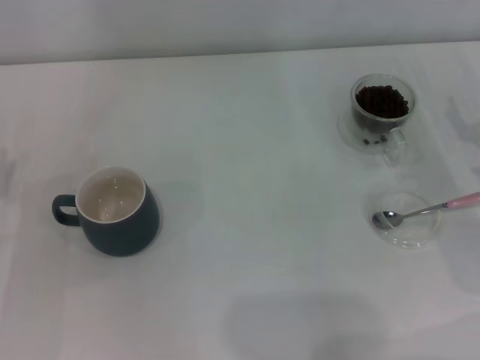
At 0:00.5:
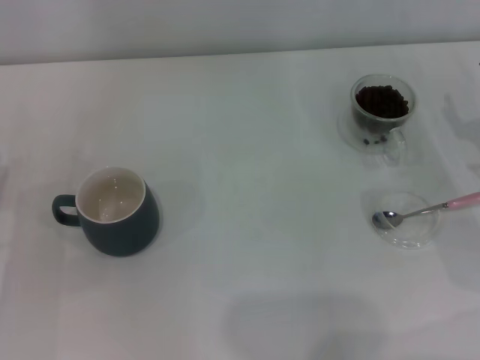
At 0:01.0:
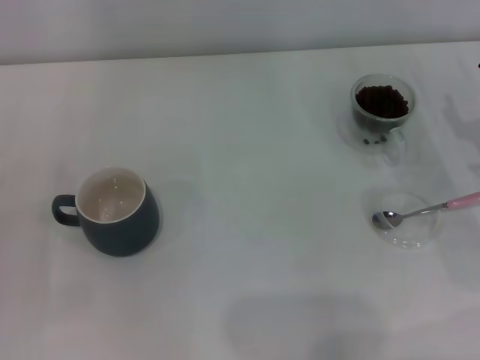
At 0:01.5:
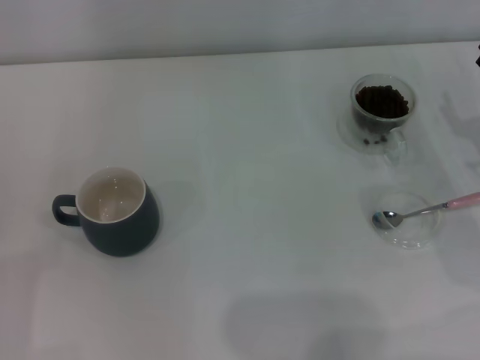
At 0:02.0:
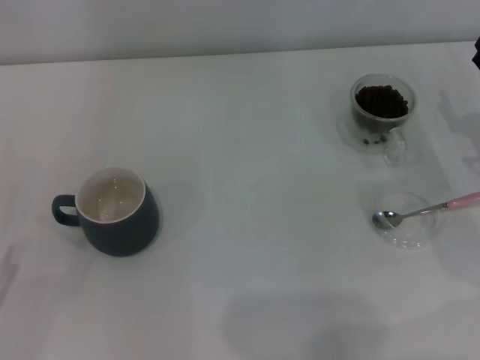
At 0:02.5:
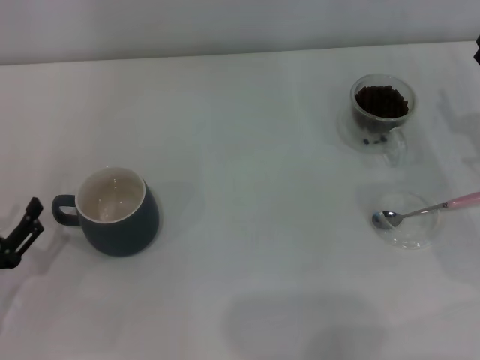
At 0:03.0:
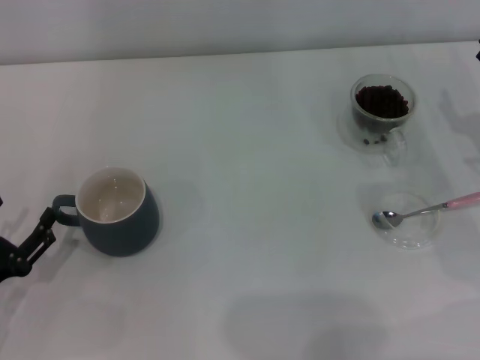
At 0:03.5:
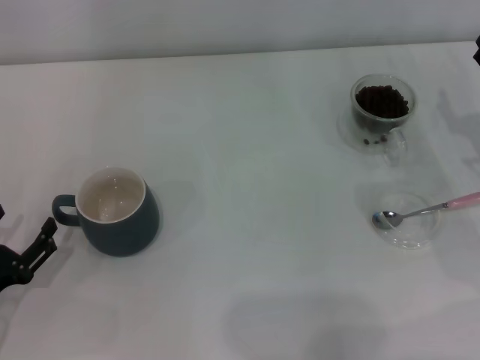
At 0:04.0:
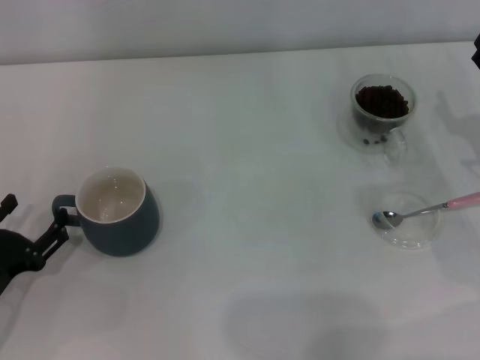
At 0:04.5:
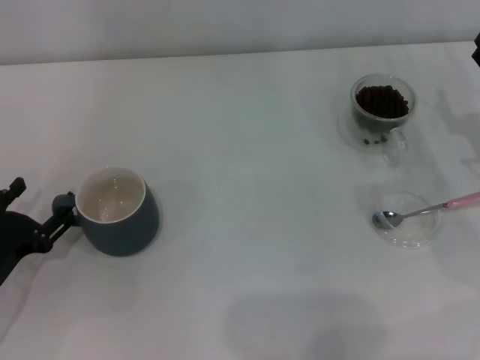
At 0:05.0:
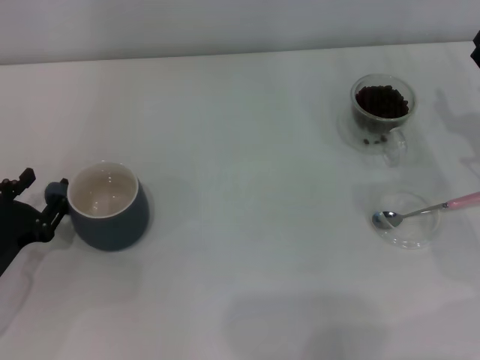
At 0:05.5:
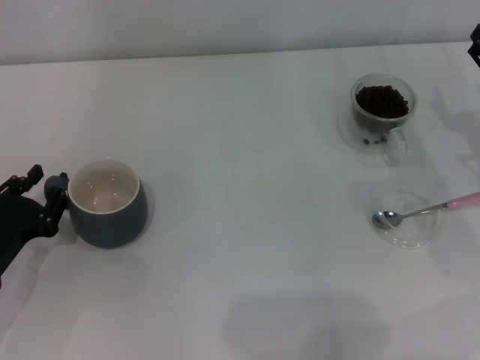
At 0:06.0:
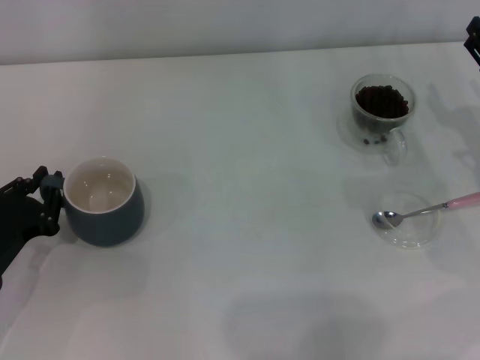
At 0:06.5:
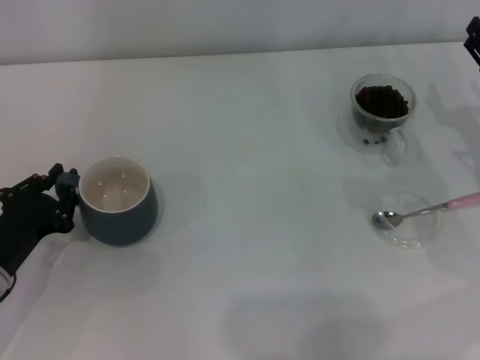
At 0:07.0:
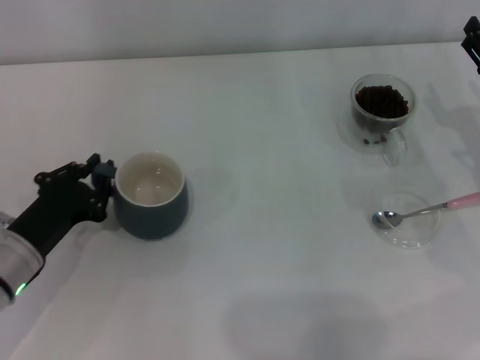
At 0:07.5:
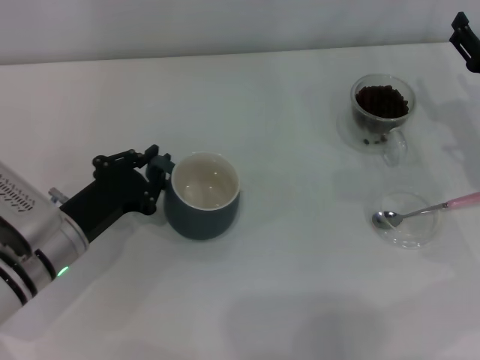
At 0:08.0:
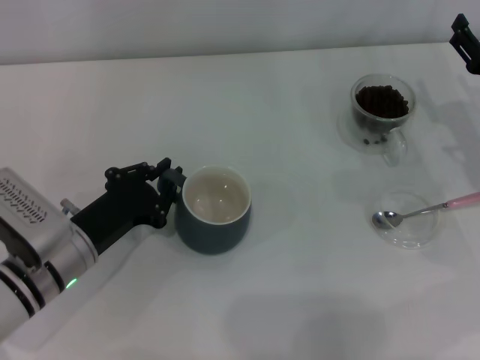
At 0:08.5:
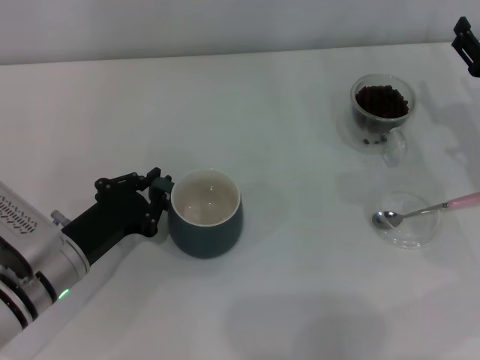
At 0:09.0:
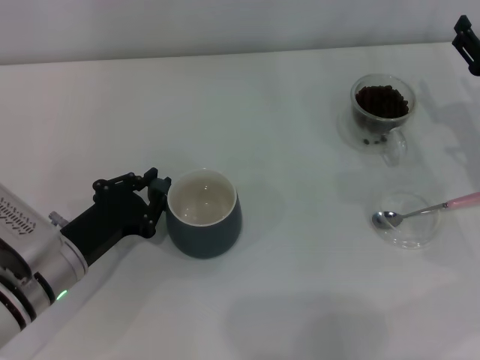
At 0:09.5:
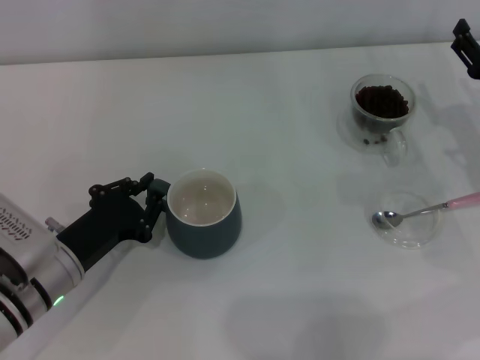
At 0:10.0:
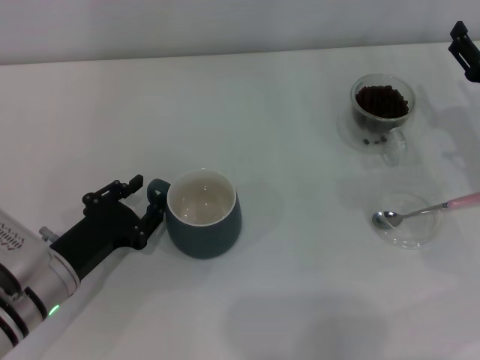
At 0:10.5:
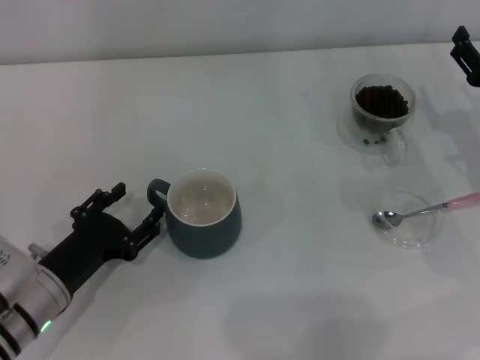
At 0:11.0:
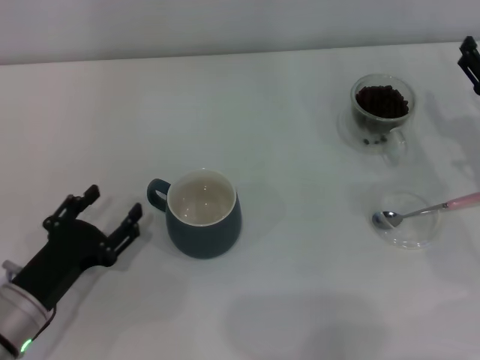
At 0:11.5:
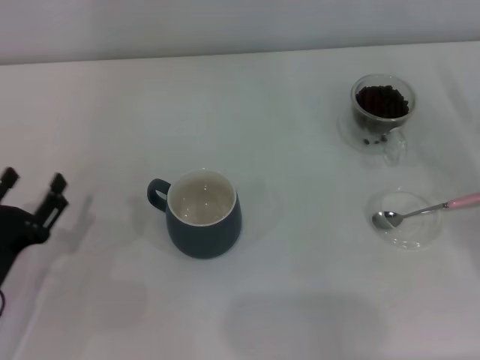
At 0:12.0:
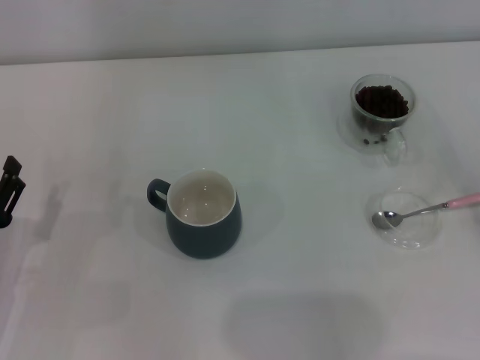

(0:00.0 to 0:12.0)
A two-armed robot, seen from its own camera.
Task of the whole recording: Use a pink spoon to take out the coffee beans from the glass and pour them into the gray cup.
Step, 0:00.0 - 0:11.0: Move the cup to the center of view with the left gripper.
0:02.0 - 0:04.0: The left gripper goes approximately 10 cm forward.
0:04.0 - 0:06.0: The left gripper closes.
0:06.0 - 0:08.0: The left gripper shifts approximately 10 cm to the right.
0:08.0 - 0:10.0: The grippers stay close to where they were, moving slightly.
0:10.0 - 0:12.0: The left gripper shifts about 5 cm to the left, and opens its fingers; the right gripper goes some 15 cm backward and to the right.

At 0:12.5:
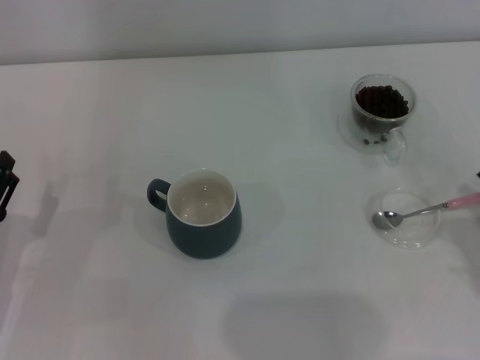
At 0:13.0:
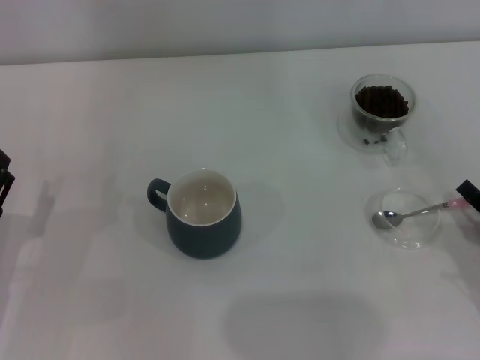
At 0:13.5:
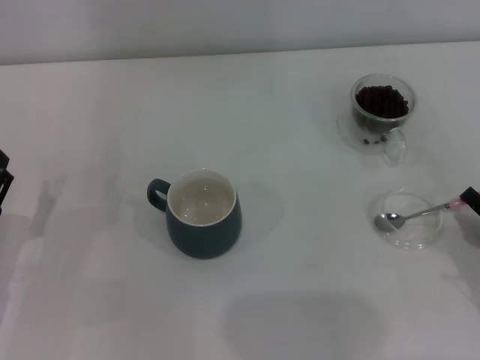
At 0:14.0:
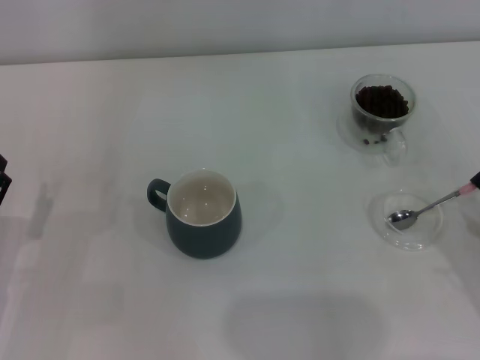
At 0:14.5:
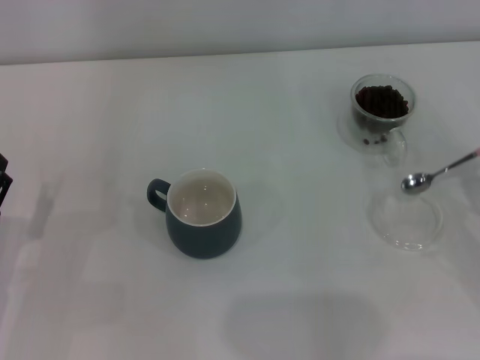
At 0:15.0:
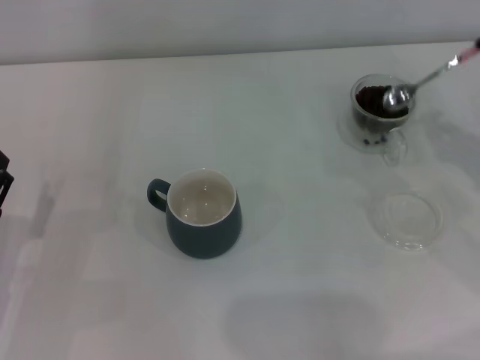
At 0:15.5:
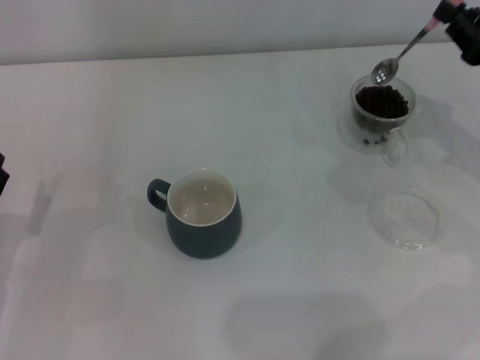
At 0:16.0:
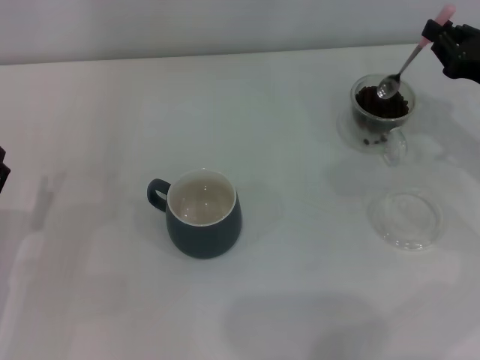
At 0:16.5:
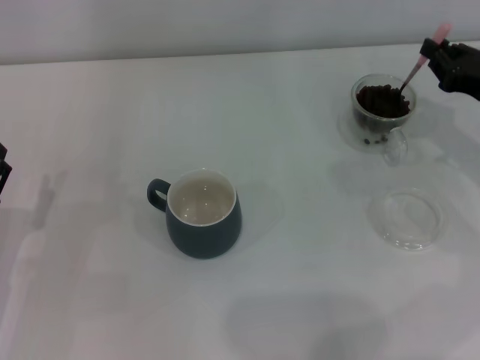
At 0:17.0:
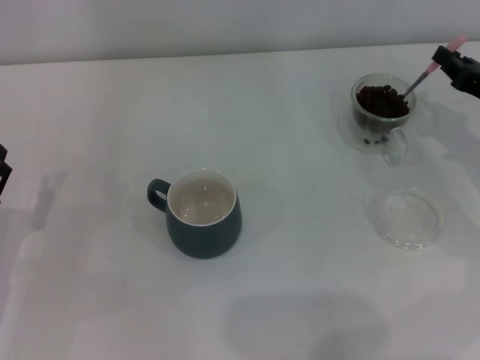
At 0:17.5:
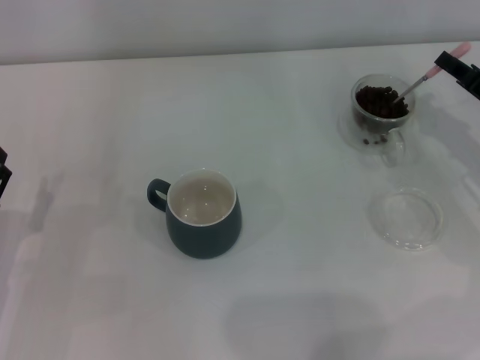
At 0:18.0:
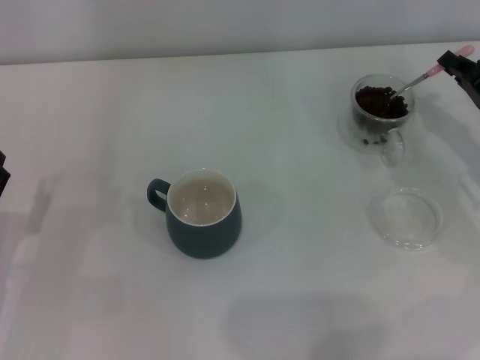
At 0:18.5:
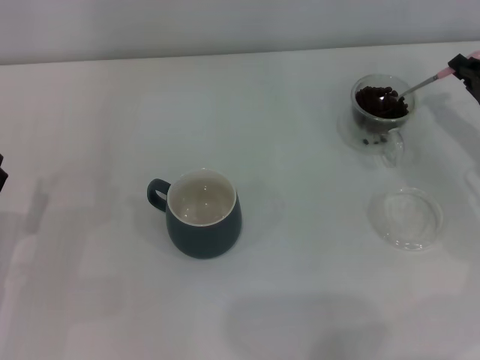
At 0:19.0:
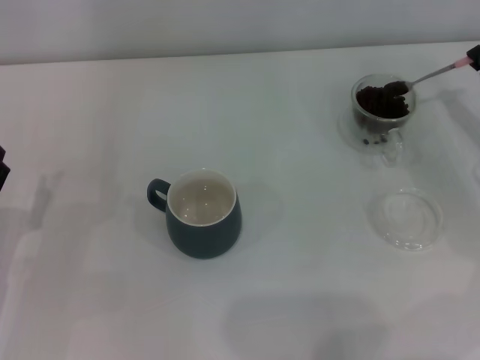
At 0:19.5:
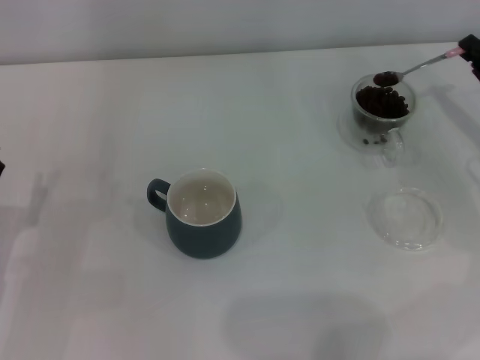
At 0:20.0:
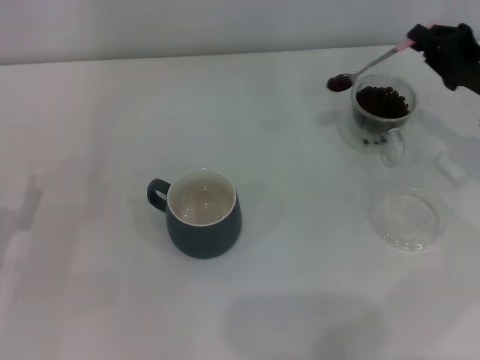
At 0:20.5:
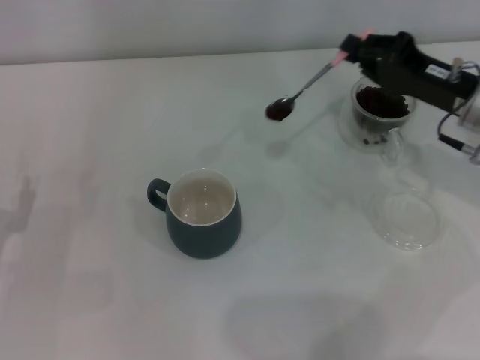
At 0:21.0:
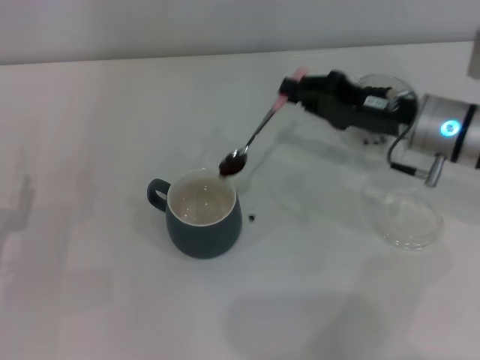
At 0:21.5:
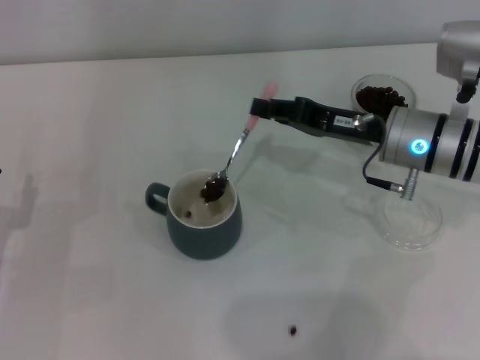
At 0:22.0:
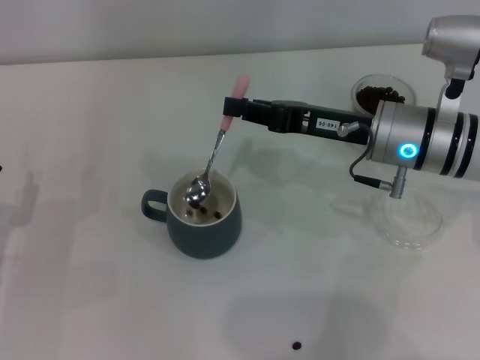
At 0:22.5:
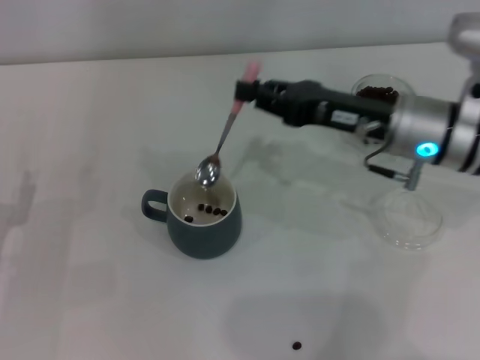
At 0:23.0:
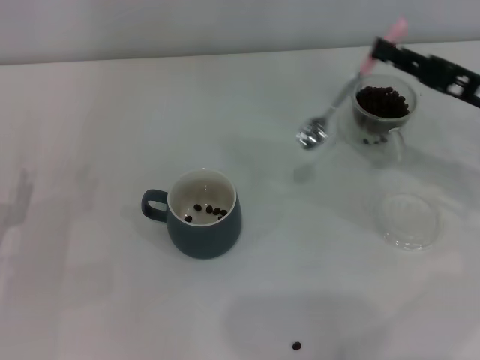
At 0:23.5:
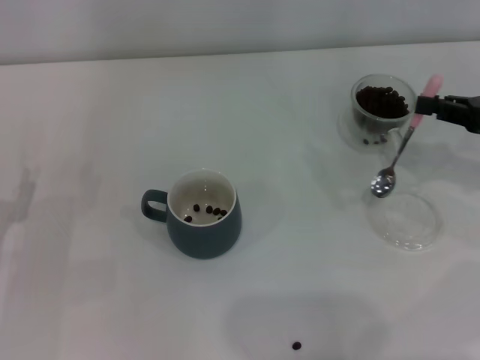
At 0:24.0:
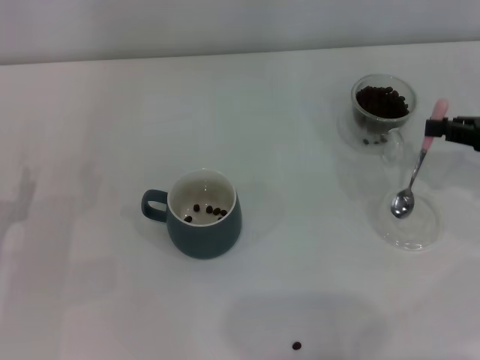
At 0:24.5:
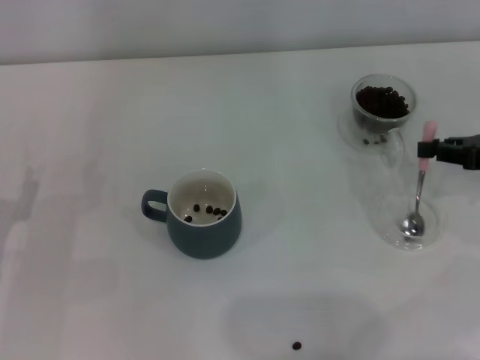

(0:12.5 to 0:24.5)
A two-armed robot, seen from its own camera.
Task of the whole recording: Use a pink spoon to take out the coffee beans from the glass and pour them into the gray cup.
Step, 0:15.0 - 0:22.5: Scoop a spoonful of beans into the cup with the right gripper.
0:12.5 - 0:14.5: The right gripper closes.
0:14.5 - 0:16.5: The right gripper goes about 15 cm forward.
0:18.5 - 0:20.5: The right gripper goes approximately 5 cm to the left.
0:20.5 - 0:22.5: The right gripper heads to the left, covering approximately 10 cm.
0:22.5 - 0:24.5: The right gripper is displaced to the right by approximately 20 cm.

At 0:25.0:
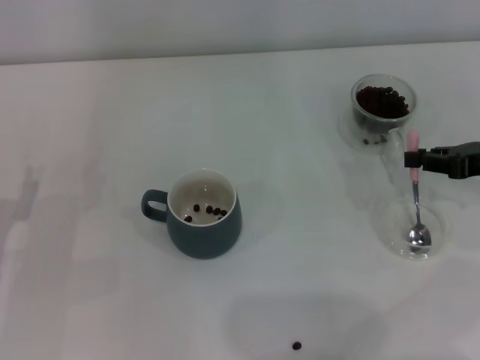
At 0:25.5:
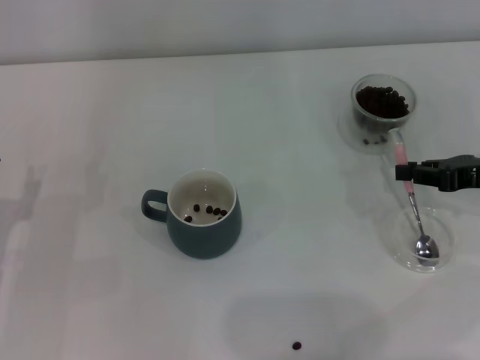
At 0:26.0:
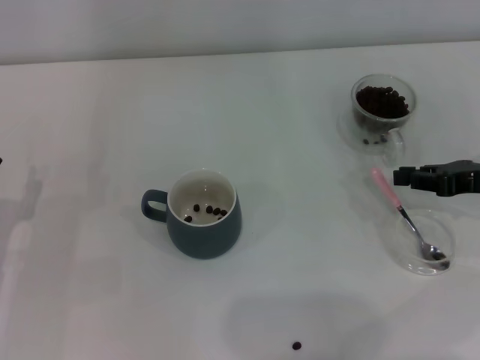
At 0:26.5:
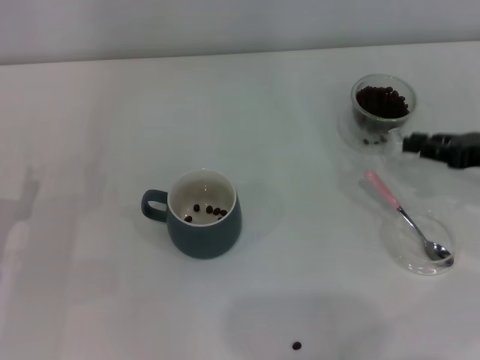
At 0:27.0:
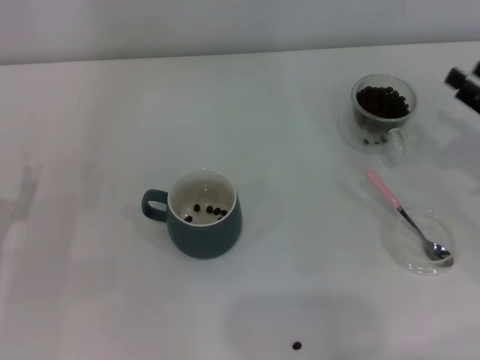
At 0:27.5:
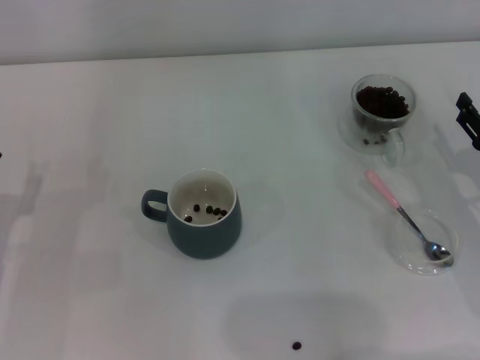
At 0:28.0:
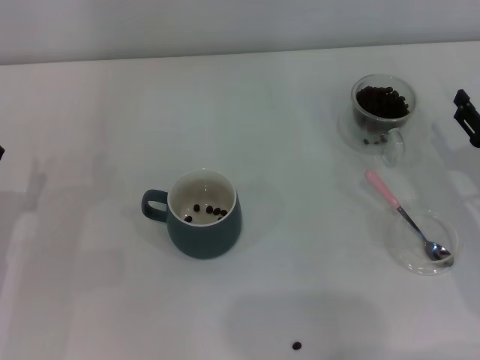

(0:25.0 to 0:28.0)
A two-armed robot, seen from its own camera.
Task of the whole recording: Use a pink spoon to take out the coffee beans from the glass and pour them into the gray cup.
0:25.0 - 0:26.5: The grippers move only a little.
0:26.5 - 0:28.0: The right gripper shifts approximately 5 cm downward, and opens.
